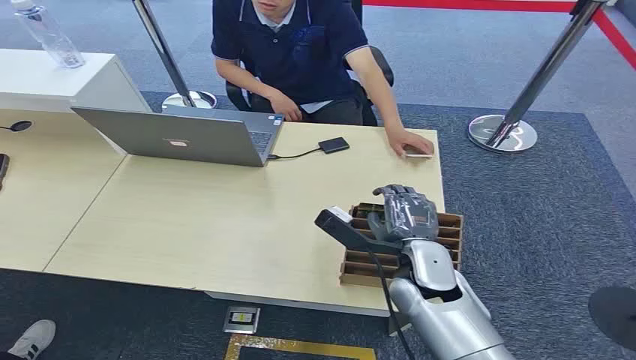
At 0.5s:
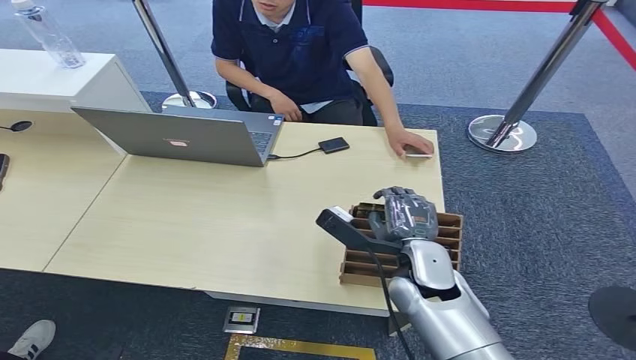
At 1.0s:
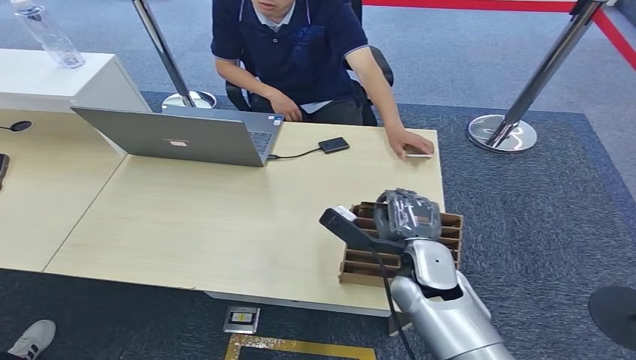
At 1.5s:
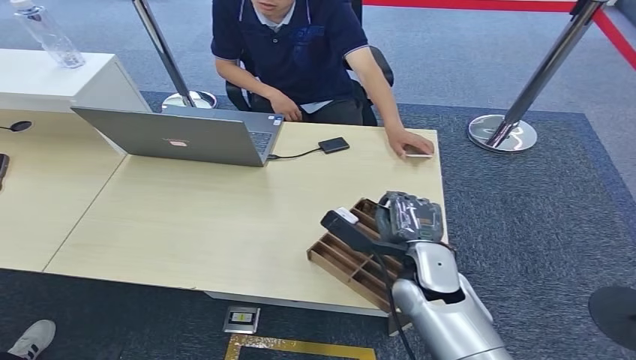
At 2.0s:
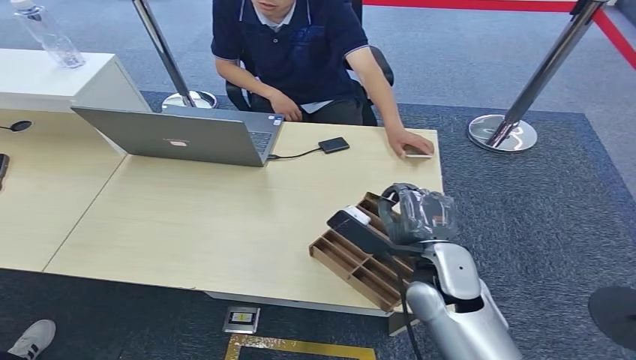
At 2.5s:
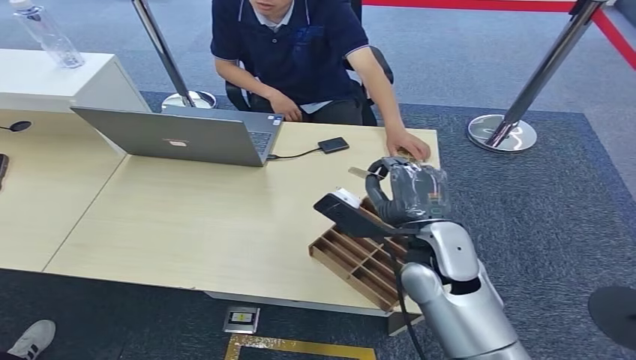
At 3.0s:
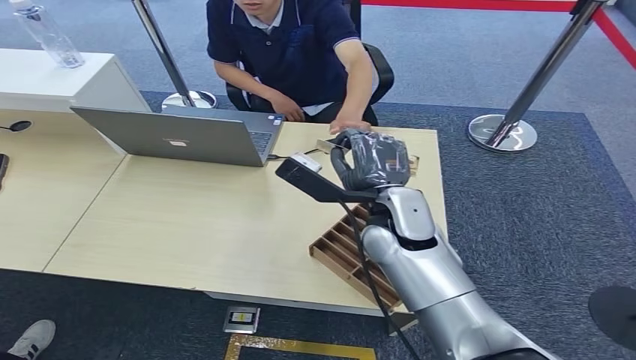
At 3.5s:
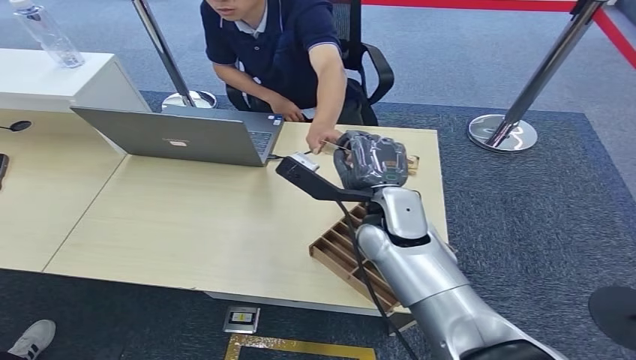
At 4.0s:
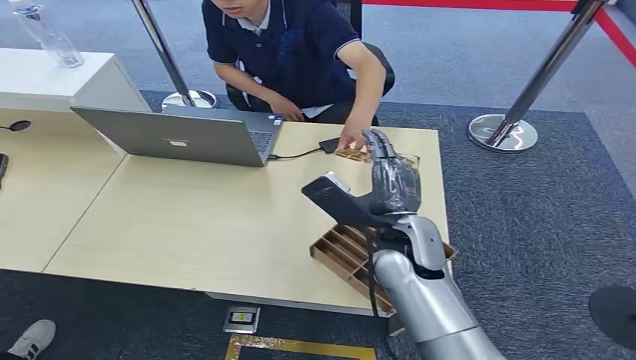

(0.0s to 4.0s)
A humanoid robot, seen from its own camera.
Step, 0.0s - 2.0s: Pick up the room card from the card holder.
Step, 2.5s - 3.5s: Hand the room card to the target.
